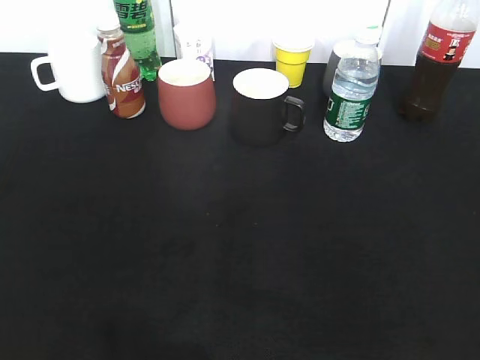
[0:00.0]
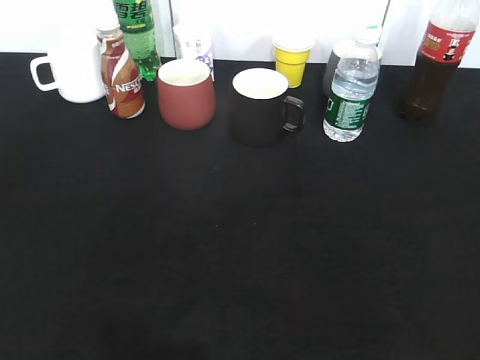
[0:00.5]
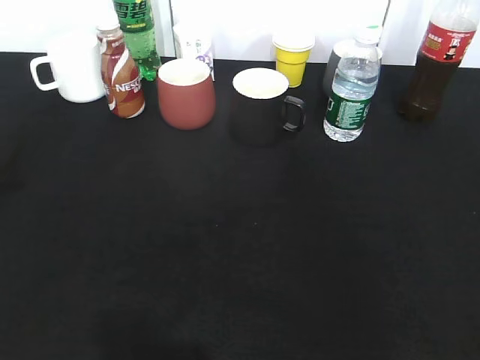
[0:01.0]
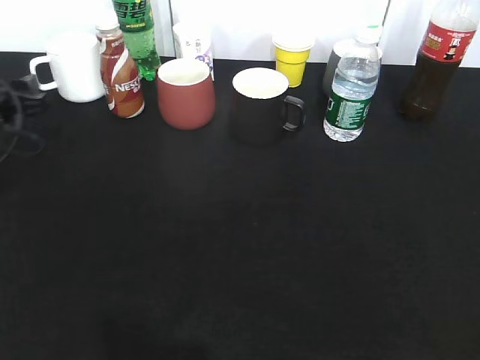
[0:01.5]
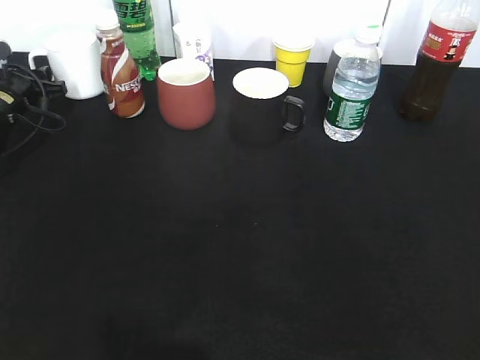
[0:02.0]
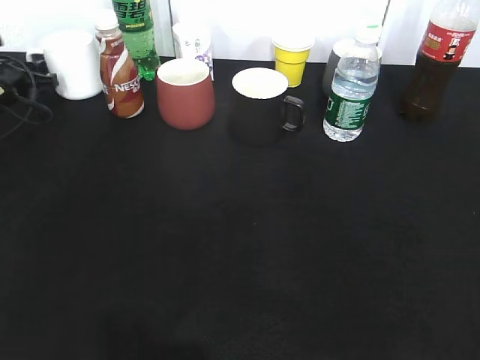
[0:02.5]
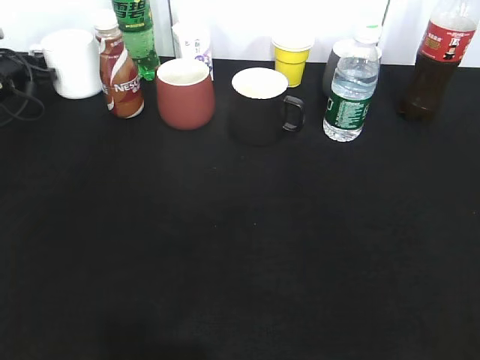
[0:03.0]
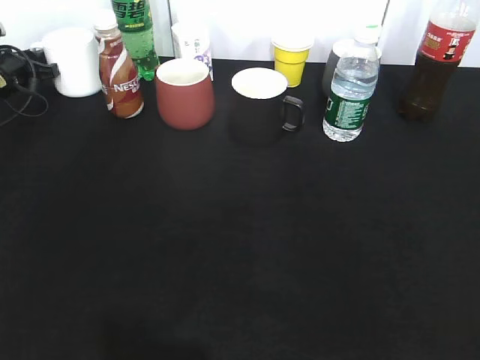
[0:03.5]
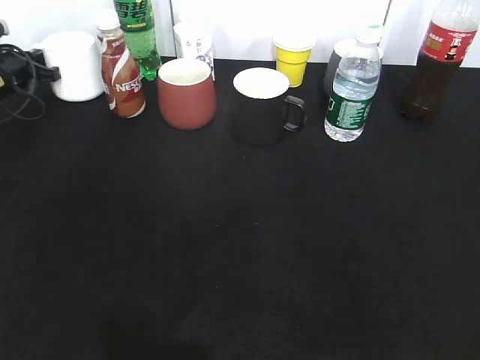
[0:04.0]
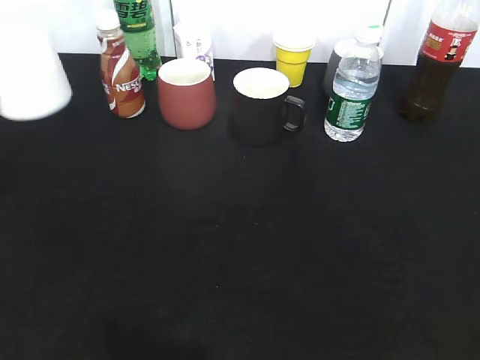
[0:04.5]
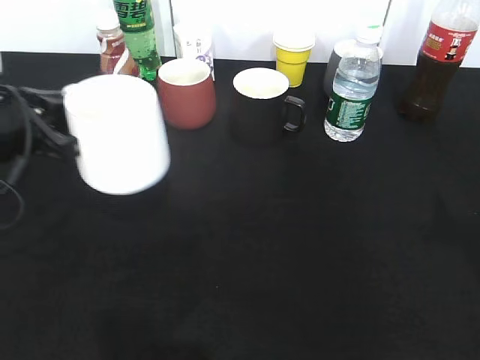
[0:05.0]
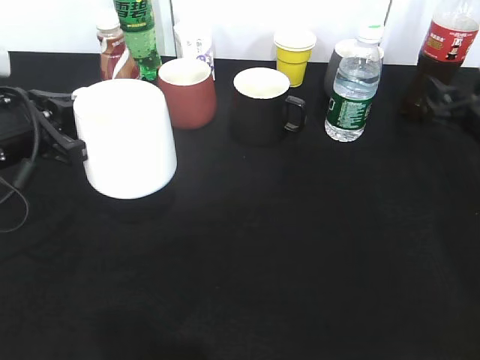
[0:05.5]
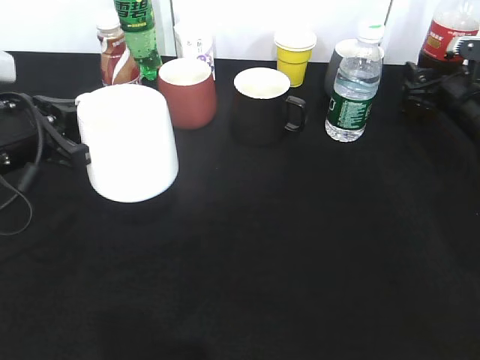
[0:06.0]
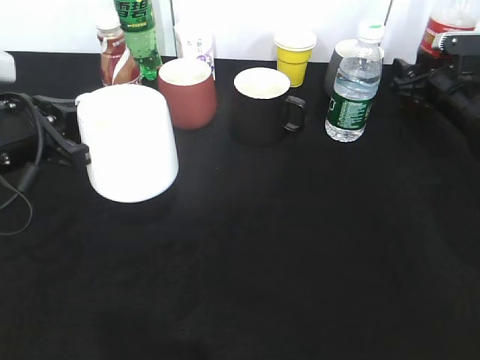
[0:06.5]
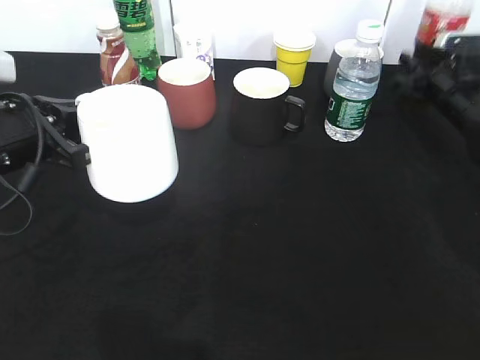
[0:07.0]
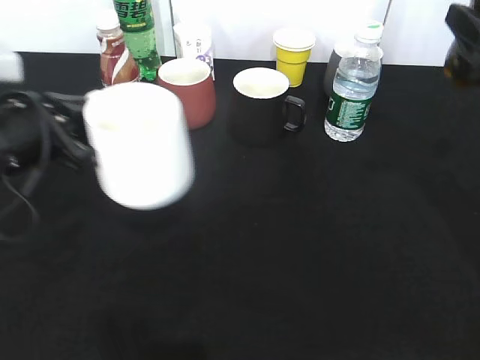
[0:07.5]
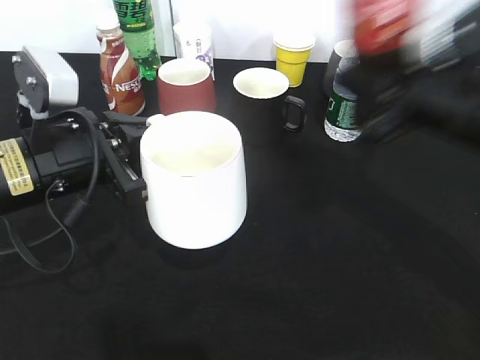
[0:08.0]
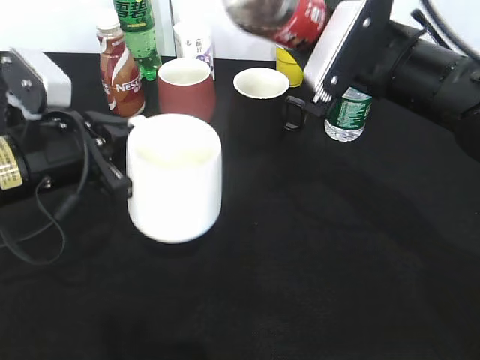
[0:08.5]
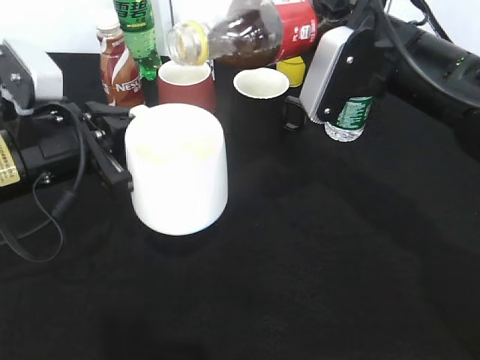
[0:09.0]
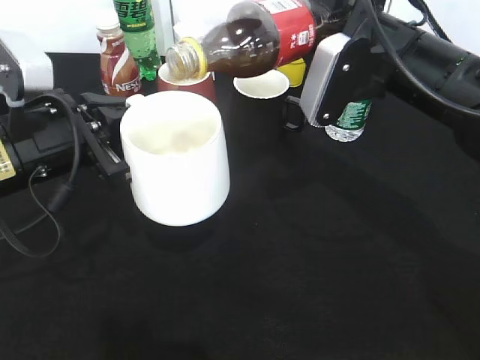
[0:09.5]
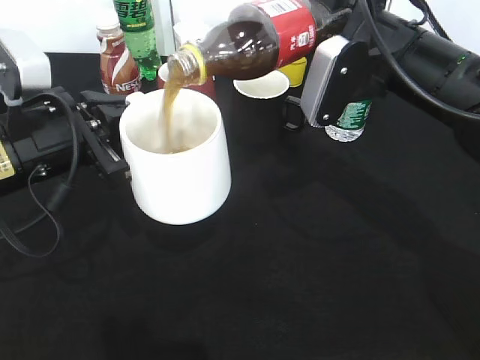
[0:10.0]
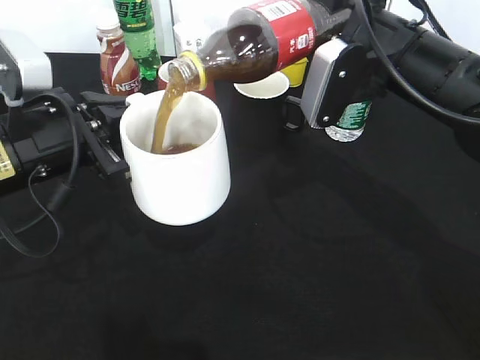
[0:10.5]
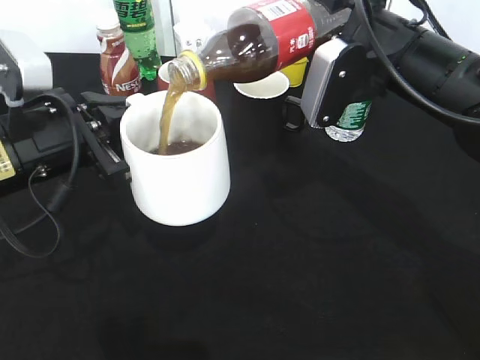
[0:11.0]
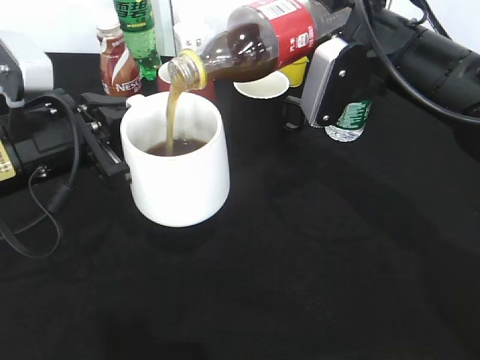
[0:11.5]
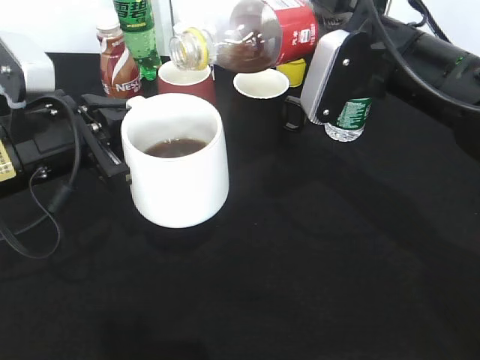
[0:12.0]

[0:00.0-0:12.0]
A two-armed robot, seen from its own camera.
Step, 0.0 to 4.0 s: Grasp the white cup with left gripper.
Step, 4.5 to 5.0 s: Lift the white cup with left gripper.
Step, 5.5 to 6.5 s: Grasp the bottle with cola with right gripper.
0.0 to 2.0 s: The left gripper is displaced forward by some 50 cm, and closes its fingers.
2.0 to 4.0 s: The left gripper moves some 5 cm, and closes up.
4.0 to 6.0 s: The right gripper is displaced forward by approximately 40 cm. The left gripper goes approximately 25 cm backward and to the right.
6.0 to 8.0 s: The right gripper travels backward, to the left and upward by about 25 cm, and closes its fingers. The left gripper travels to the right by about 5 cm.
8.0 to 10.0 s: The right gripper shifts some 5 cm forward.
10.0 to 12.0 s: The grippers move only a little.

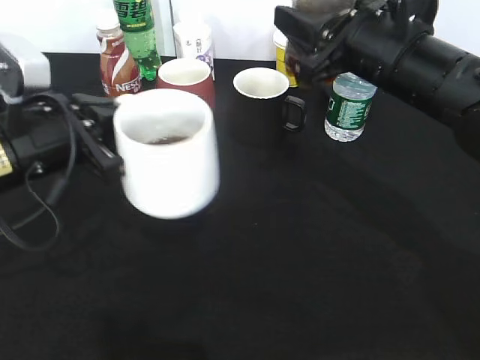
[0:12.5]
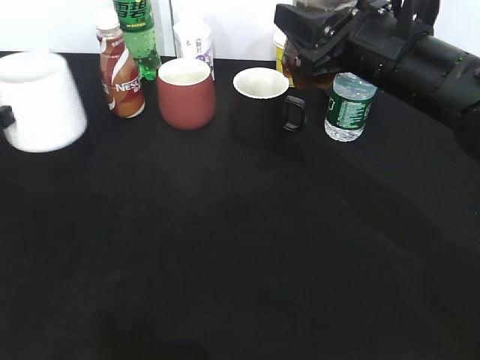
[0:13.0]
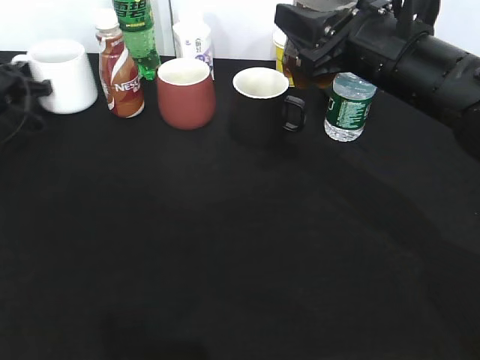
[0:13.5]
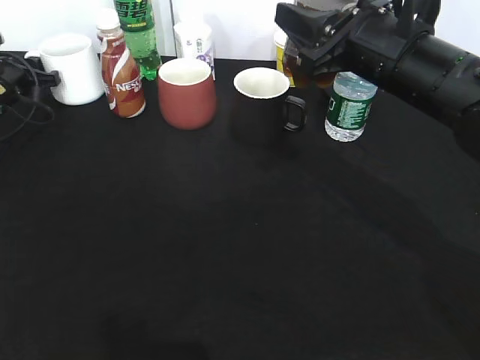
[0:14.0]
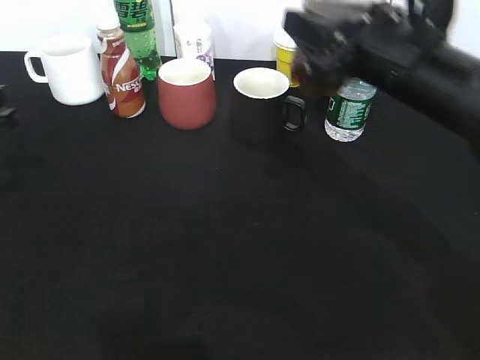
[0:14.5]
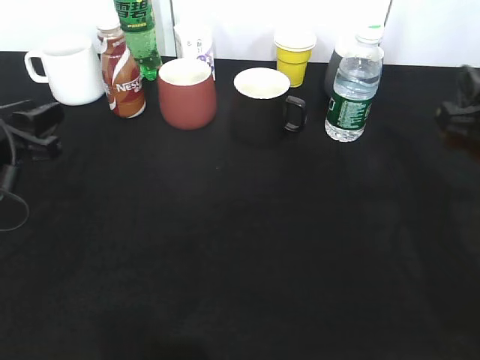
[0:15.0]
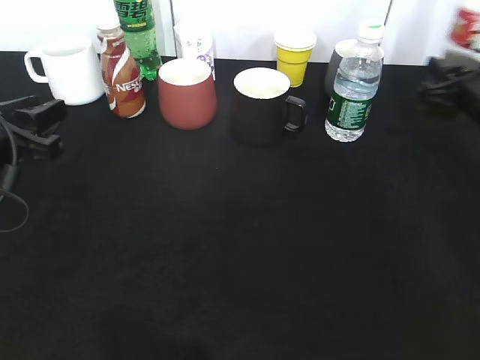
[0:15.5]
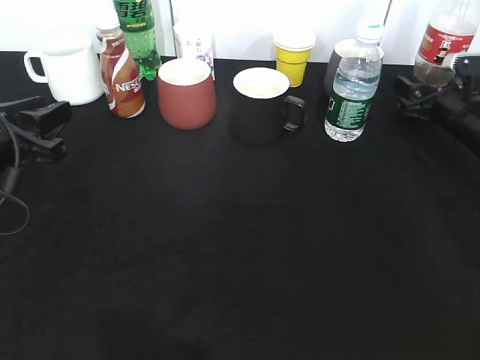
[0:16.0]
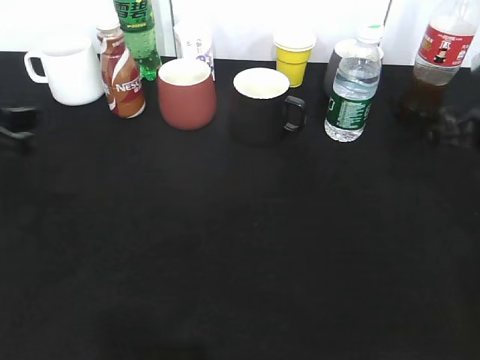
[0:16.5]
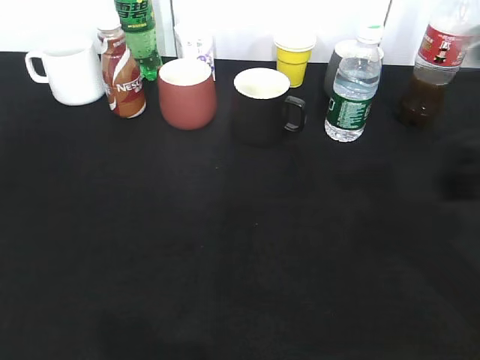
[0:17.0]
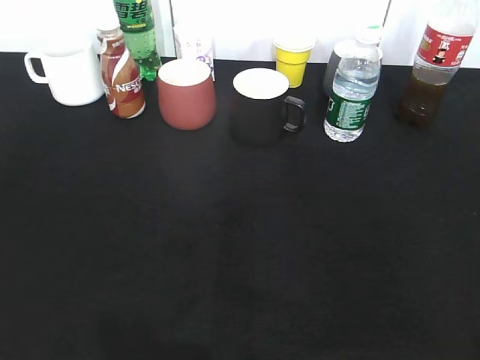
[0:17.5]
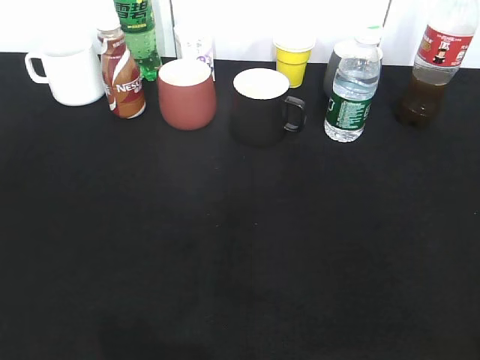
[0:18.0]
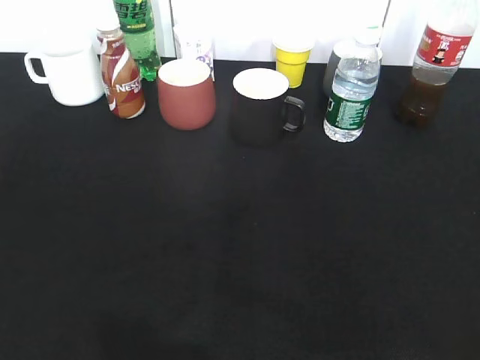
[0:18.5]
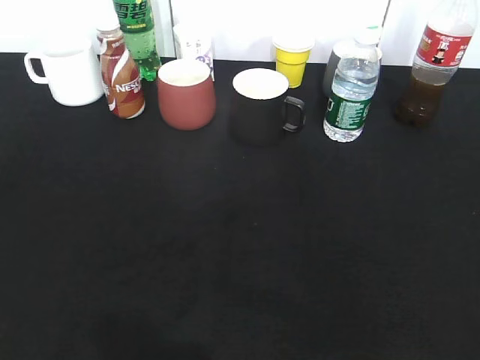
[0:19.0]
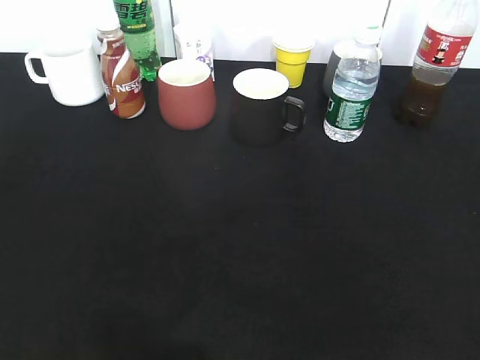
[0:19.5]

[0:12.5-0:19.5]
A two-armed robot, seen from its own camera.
Step, 12.5 to 14.0 s: Place the white cup on the table with left gripper.
Step, 14.5 to 16.5 s: Place the cola bottle on the table with right gripper.
12.5 to 14.5 s: The left gripper heads to the left, covering approximately 15 cm, moves approximately 20 cm forward and comes back, and opens its fingers.
14.5 to 16.0 s: The left gripper is displaced to the right by about 5 cm; the right gripper travels to the right, downward and forward by some 25 cm, and opens its fingers.
16.0 to 17.5 s: The right gripper shifts approximately 50 cm backward and upward, while the left gripper travels backward and upward by about 25 cm.

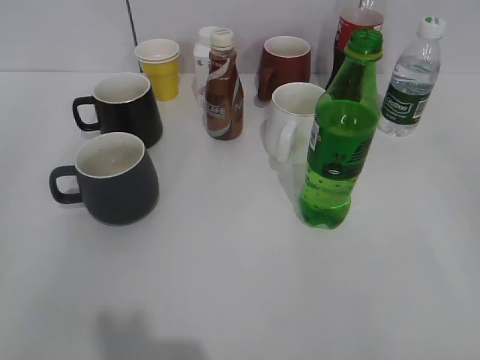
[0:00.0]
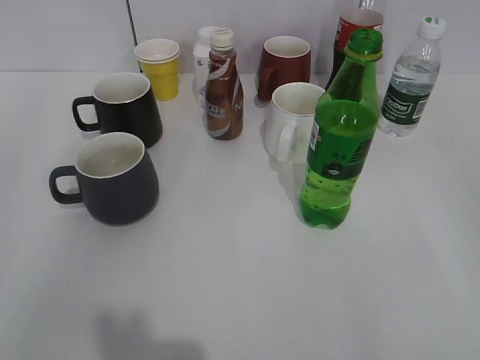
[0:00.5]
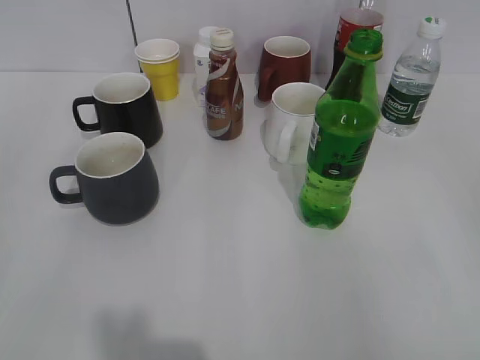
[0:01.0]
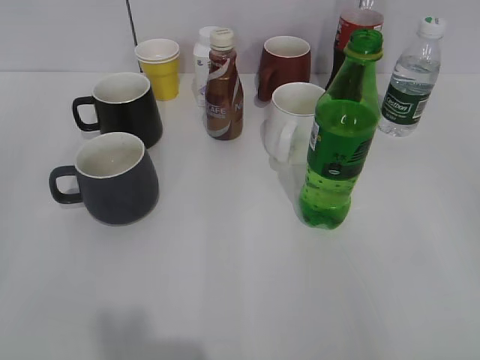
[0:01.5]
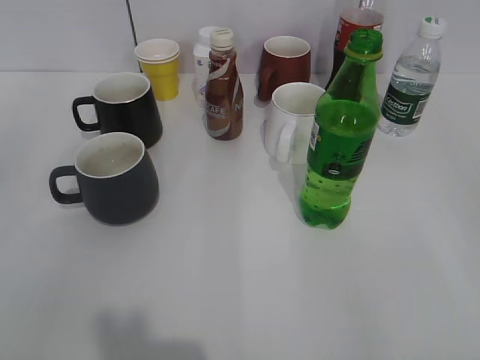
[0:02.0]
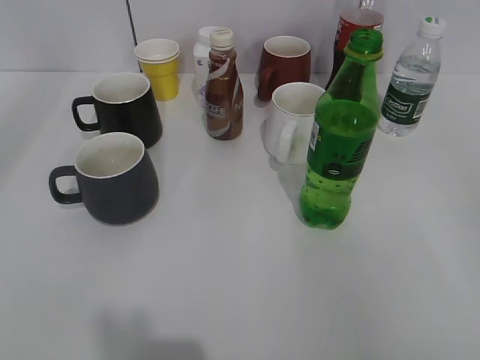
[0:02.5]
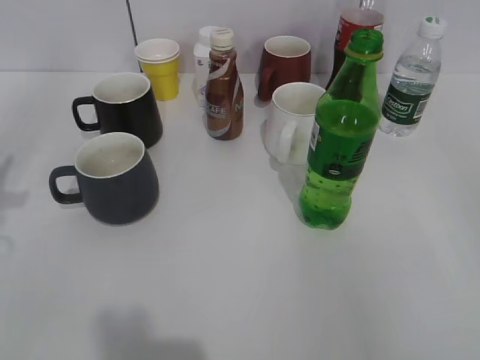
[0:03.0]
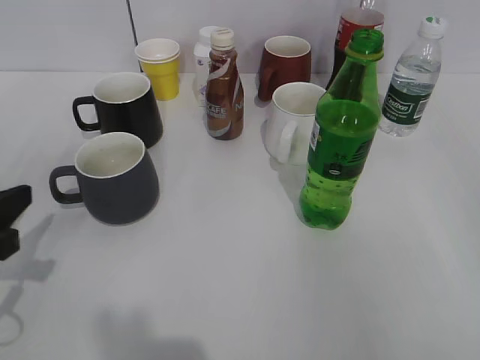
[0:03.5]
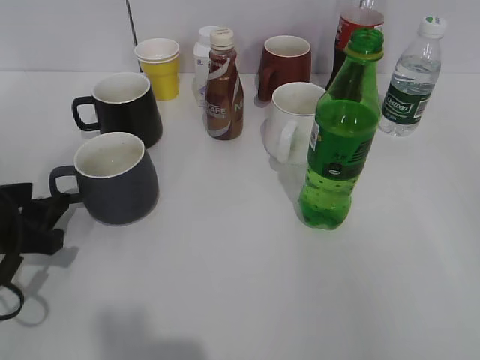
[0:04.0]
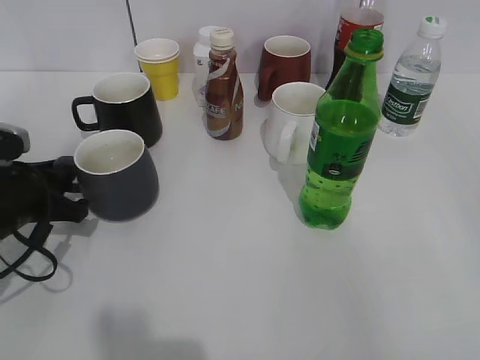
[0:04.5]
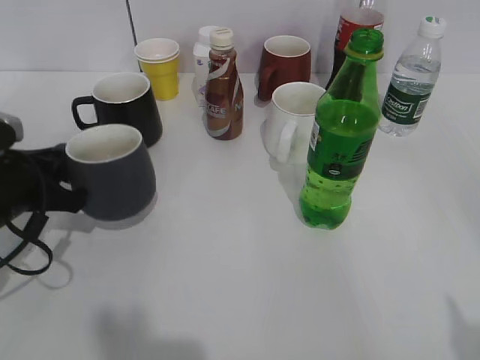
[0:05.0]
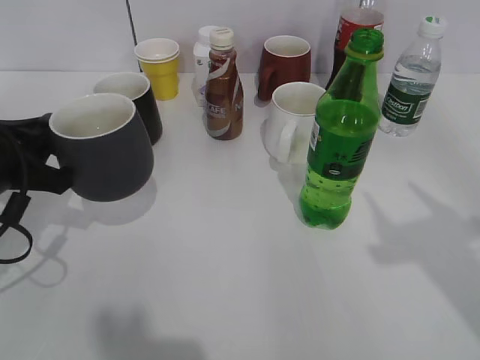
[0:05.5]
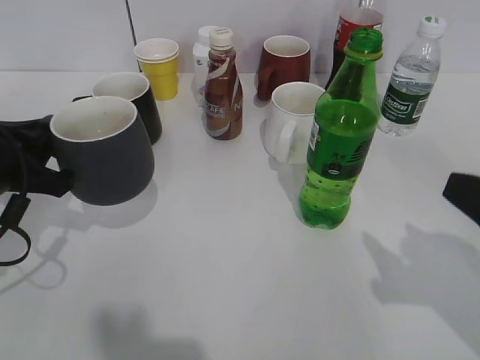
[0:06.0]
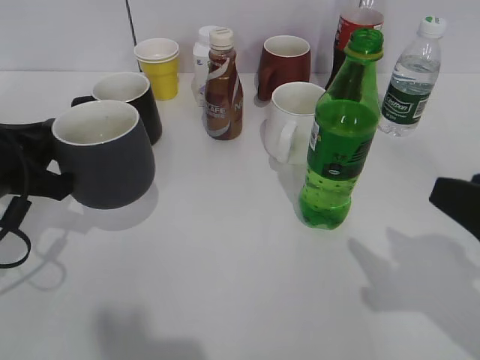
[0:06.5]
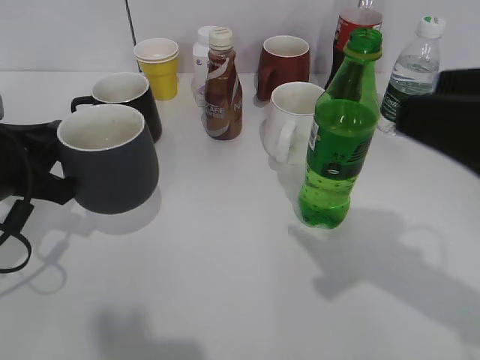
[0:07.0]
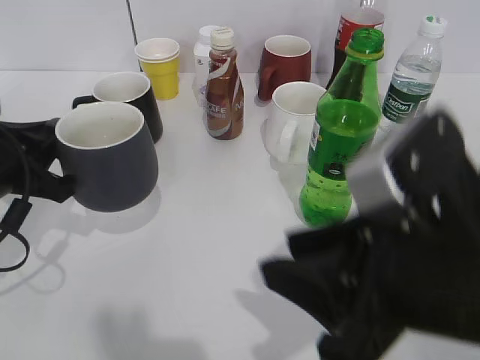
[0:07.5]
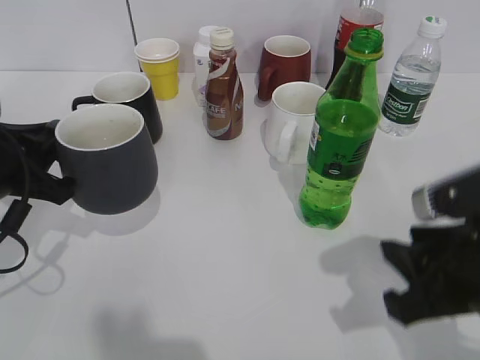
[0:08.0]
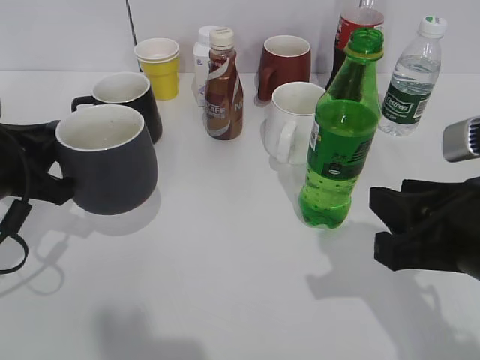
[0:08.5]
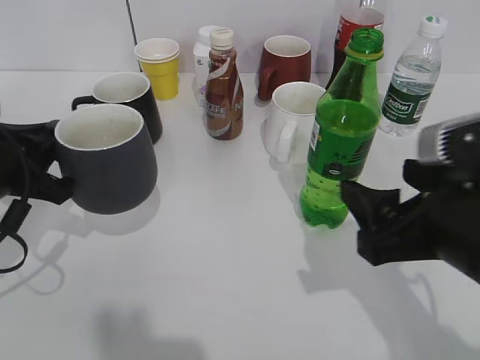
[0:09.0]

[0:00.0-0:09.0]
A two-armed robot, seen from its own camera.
Step, 2.0 to 4.5 s: Grasp the grey cup with left gripper.
Step, 5.0 to 5.5 s: Lift the grey cup with left gripper.
2.0 to 4.5 s: The left gripper shifts roughly 30 cm forward and downward, and opens and closes again.
4.5 to 7.0 s: The right gripper is displaced forward and to the left by roughly 15 cm, and closes, while the left gripper goes some 5 cm upward.
7.0 to 9.0 s: The right gripper heads downward, covering about 10 cm, and opens.
